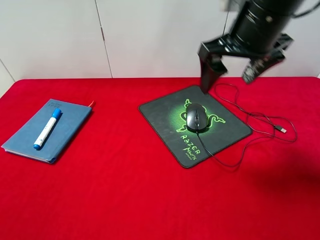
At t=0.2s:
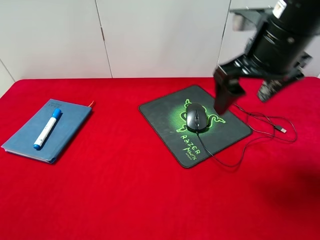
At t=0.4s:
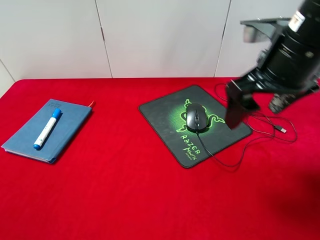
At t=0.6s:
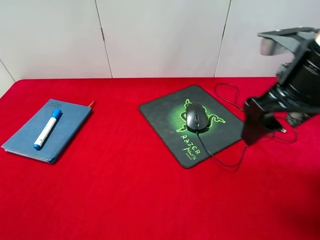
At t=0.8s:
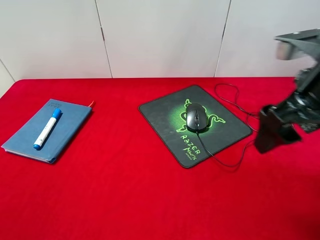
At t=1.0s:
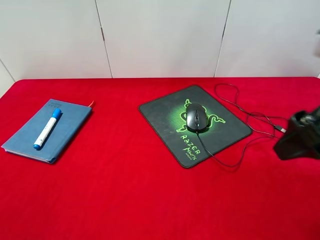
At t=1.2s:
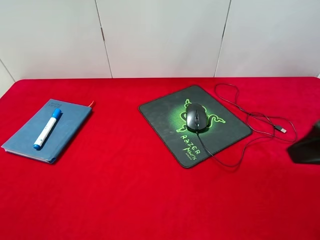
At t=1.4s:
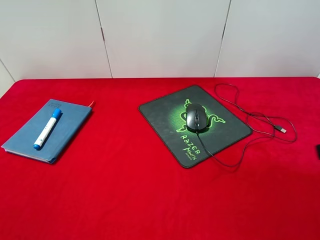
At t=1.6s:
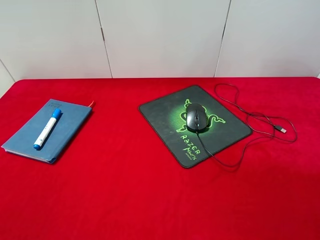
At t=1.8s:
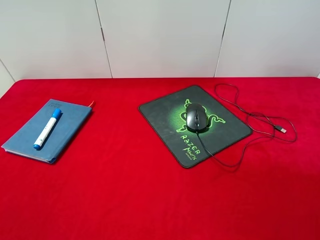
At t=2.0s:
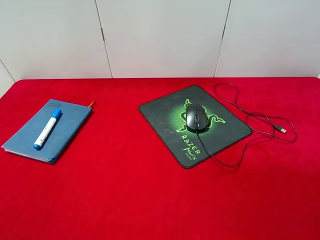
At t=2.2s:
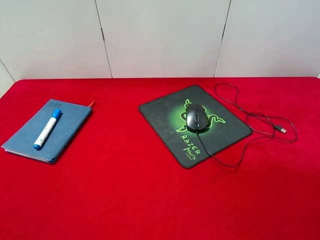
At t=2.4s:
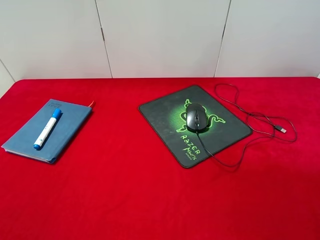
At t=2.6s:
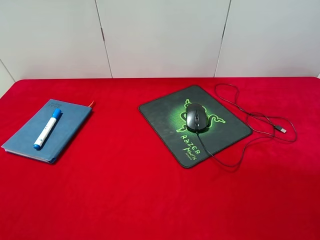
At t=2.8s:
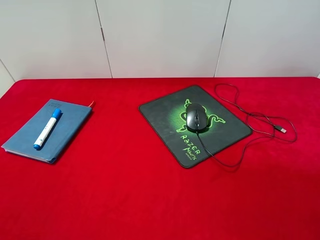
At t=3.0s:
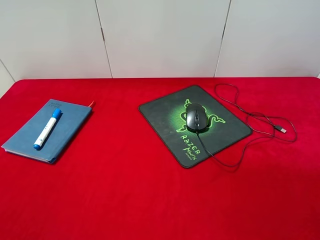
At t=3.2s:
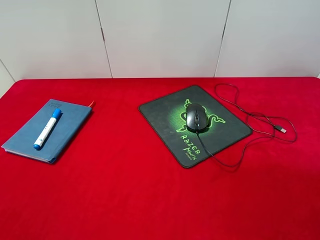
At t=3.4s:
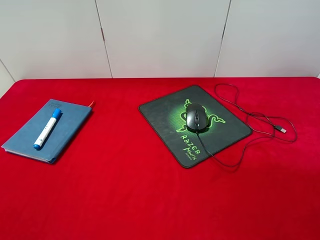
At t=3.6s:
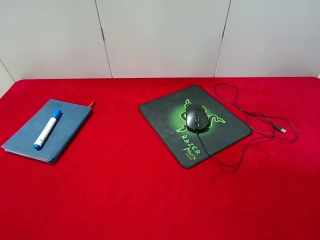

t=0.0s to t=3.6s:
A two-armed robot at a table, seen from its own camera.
t=0.0s to t=1.8s: The right gripper heads backward and to the right, covering about 30 cm.
